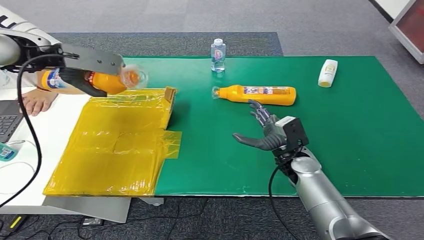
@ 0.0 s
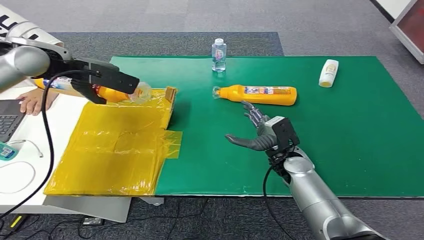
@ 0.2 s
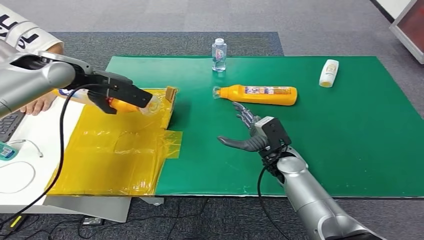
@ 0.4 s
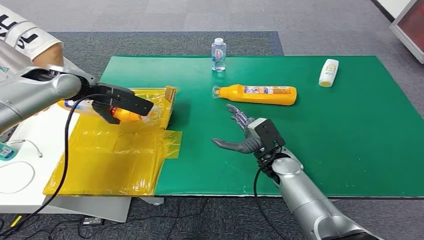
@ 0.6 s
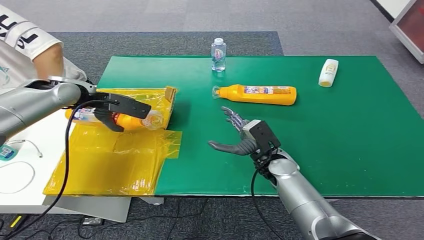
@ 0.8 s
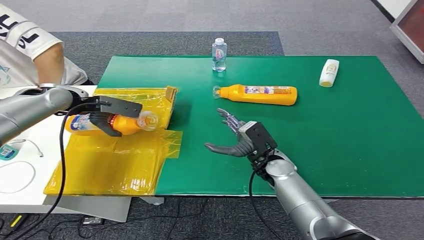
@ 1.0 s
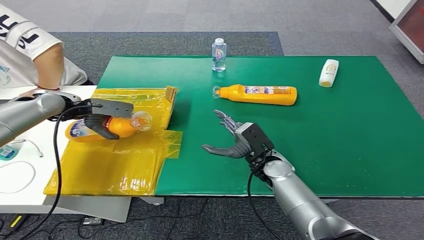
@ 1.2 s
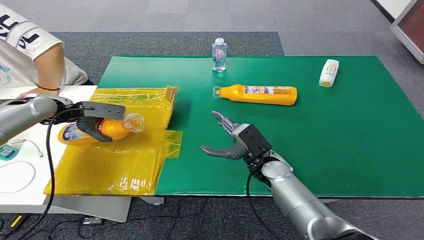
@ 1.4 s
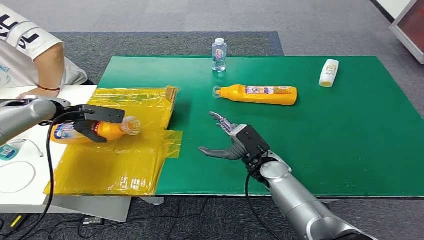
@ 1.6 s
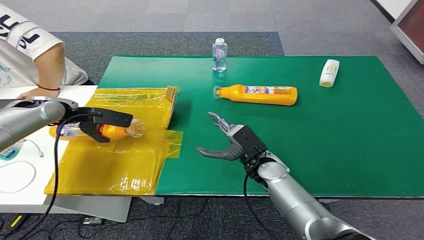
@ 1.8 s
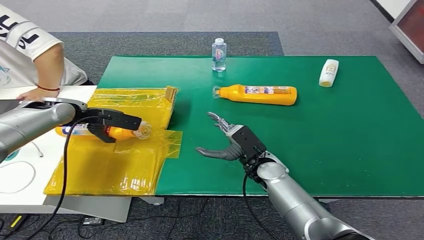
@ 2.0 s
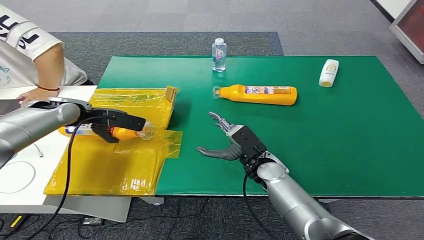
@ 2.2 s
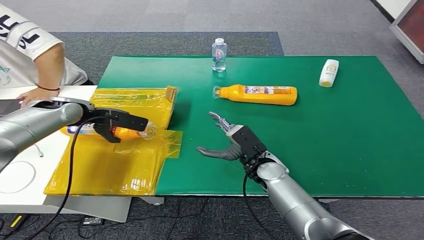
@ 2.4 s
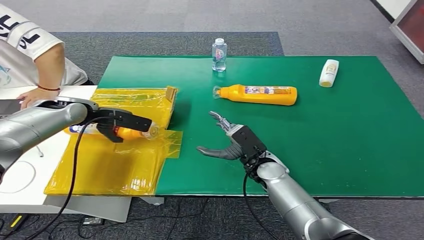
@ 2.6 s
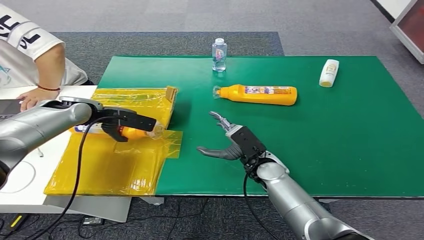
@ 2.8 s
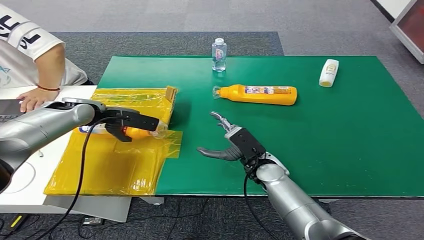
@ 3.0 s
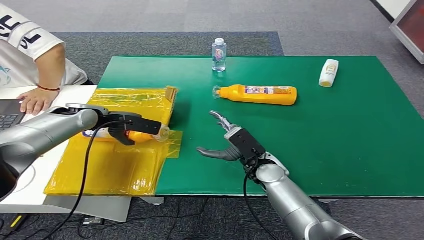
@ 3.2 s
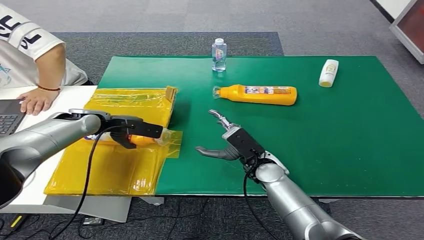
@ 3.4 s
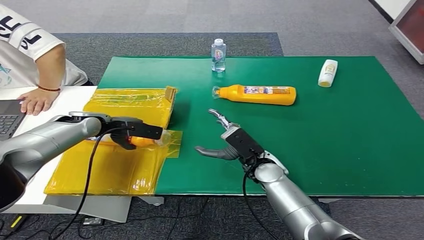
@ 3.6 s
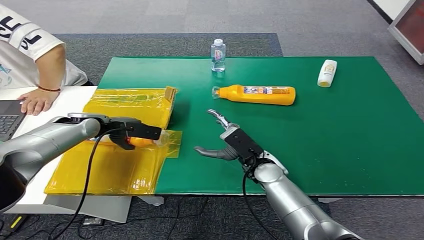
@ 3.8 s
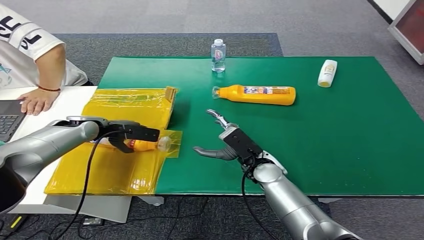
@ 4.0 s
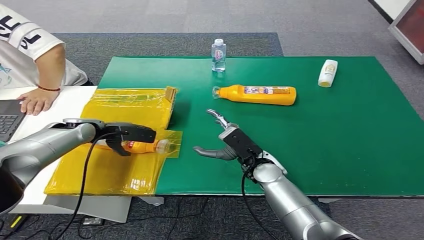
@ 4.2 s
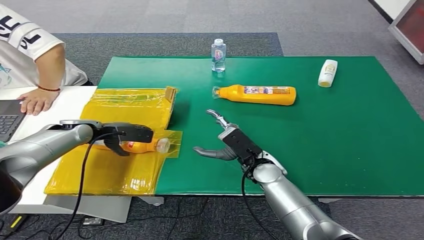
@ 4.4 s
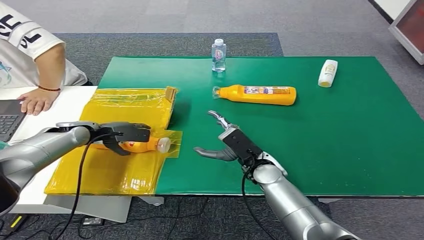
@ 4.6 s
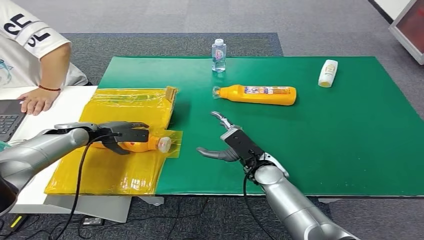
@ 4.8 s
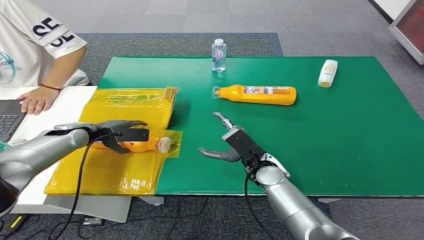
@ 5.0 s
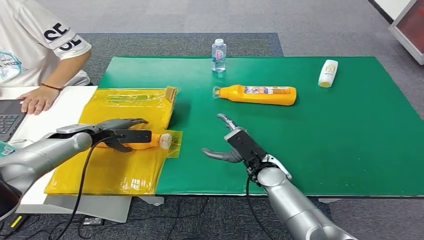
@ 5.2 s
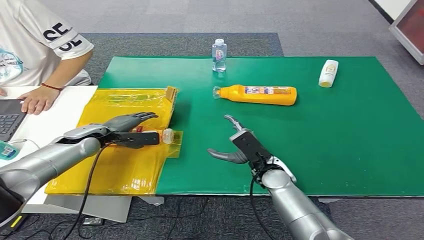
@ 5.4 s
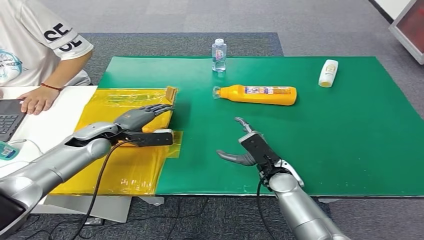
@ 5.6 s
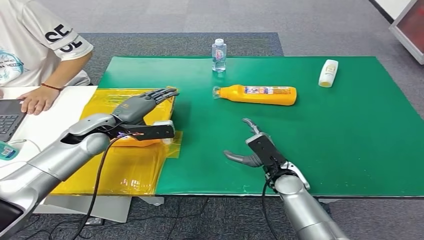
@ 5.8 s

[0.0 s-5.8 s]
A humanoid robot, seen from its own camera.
Step, 0.0 to 5.8 s: Turn the bottle to the front side.
1.4 to 2.8 s: The left hand shifts about 5 cm to the right.
2.8 to 4.4 s: The left hand heads downward, covering approximately 5 cm.
